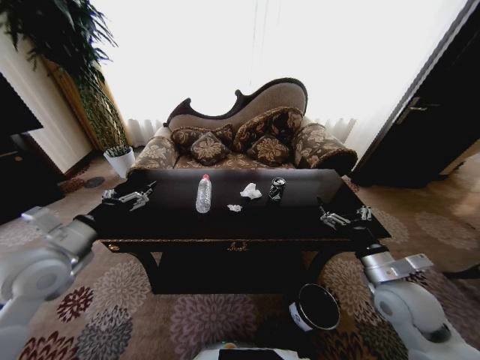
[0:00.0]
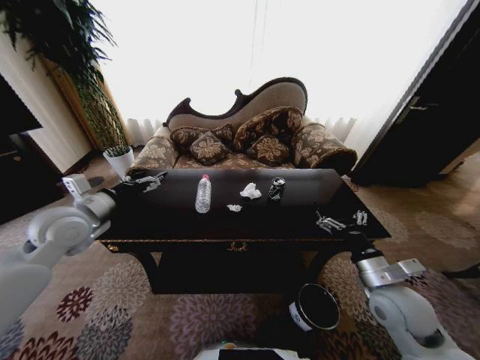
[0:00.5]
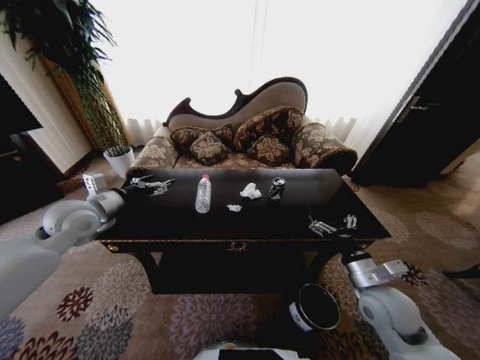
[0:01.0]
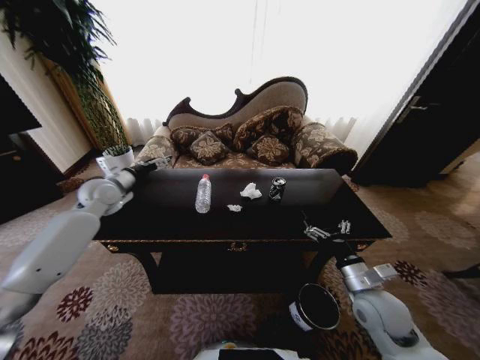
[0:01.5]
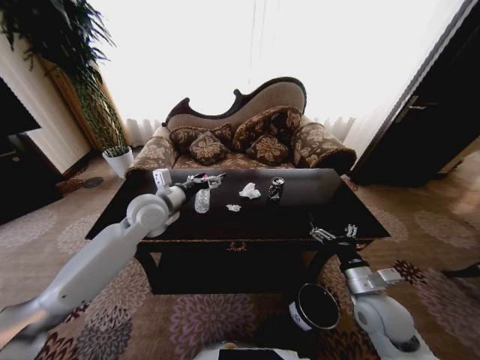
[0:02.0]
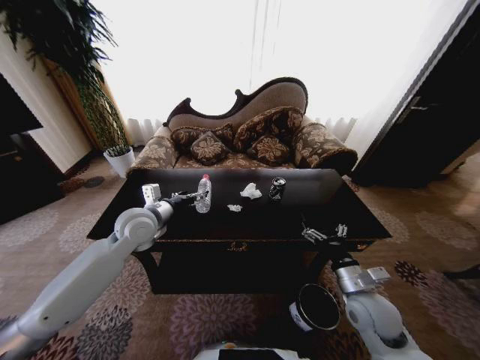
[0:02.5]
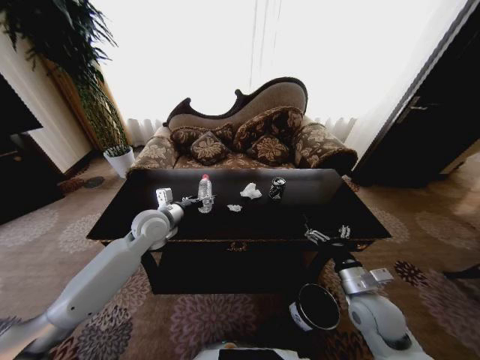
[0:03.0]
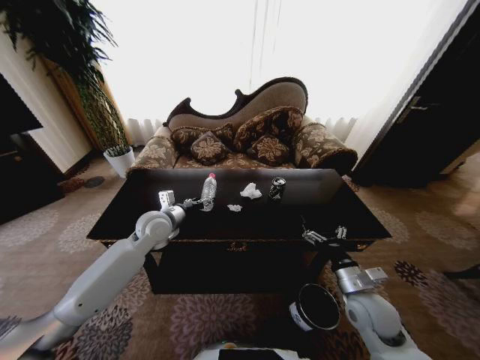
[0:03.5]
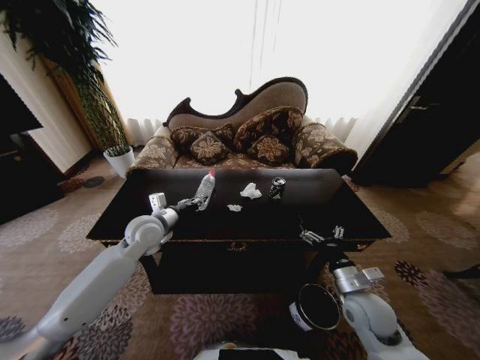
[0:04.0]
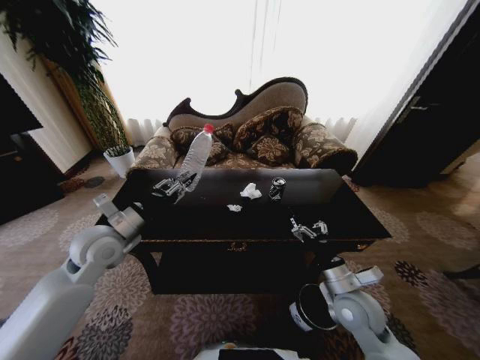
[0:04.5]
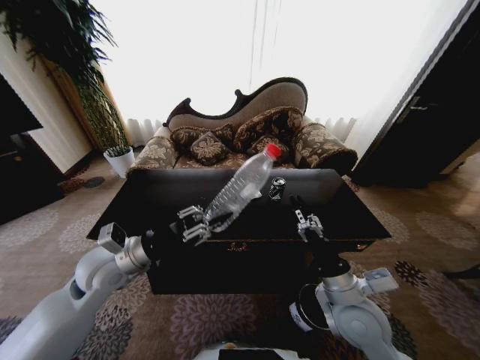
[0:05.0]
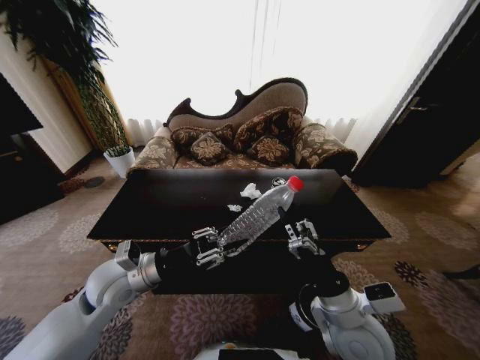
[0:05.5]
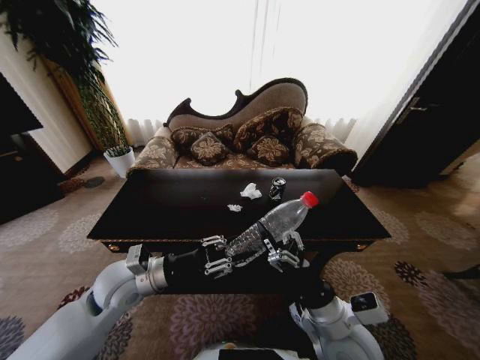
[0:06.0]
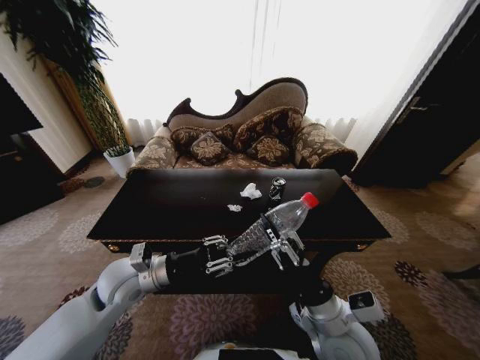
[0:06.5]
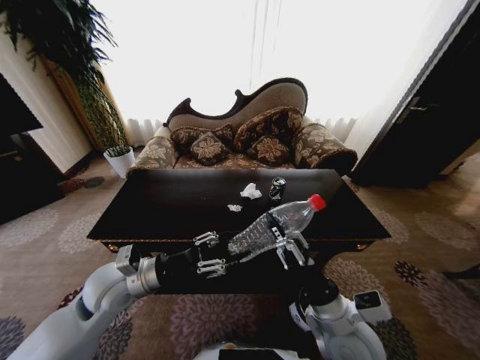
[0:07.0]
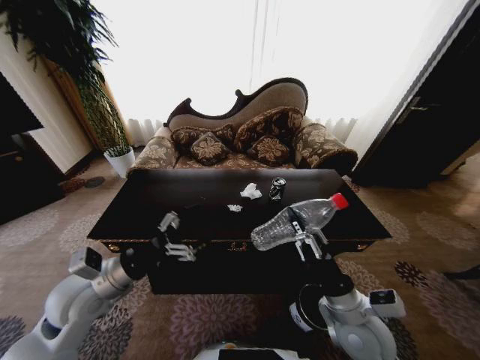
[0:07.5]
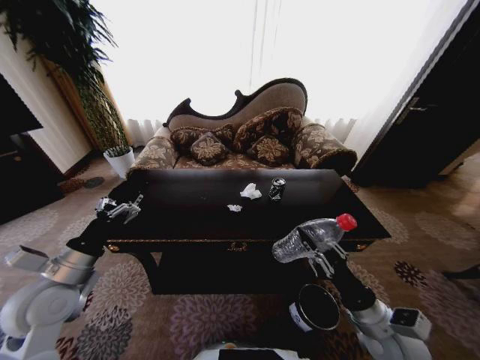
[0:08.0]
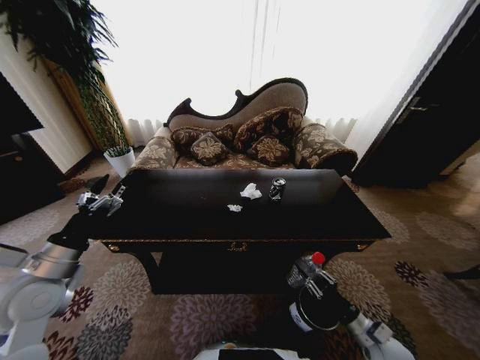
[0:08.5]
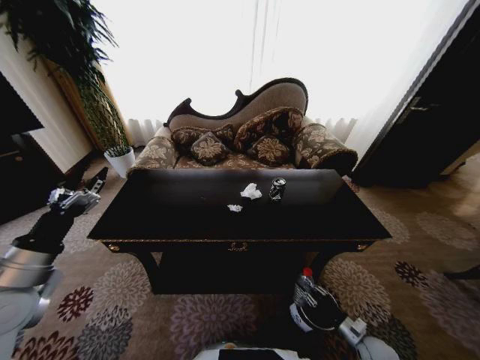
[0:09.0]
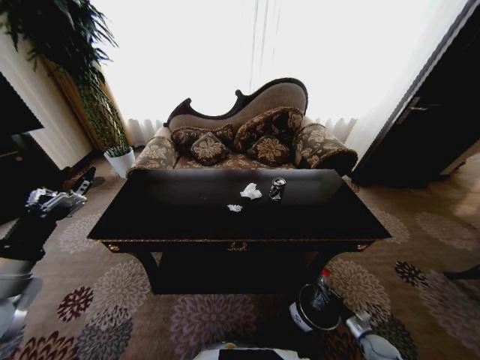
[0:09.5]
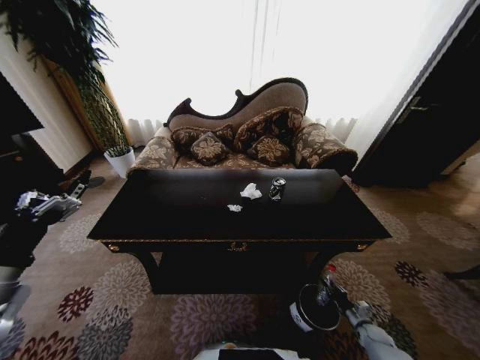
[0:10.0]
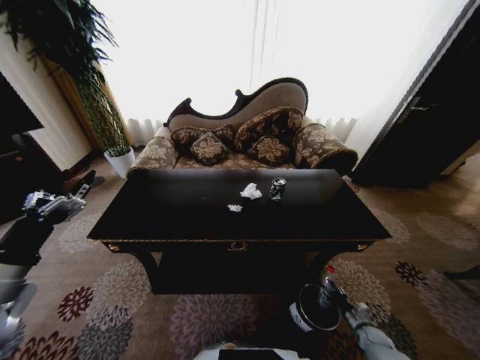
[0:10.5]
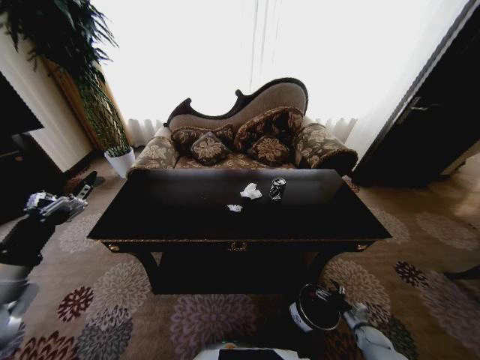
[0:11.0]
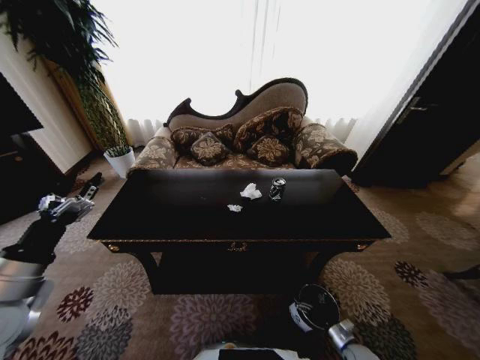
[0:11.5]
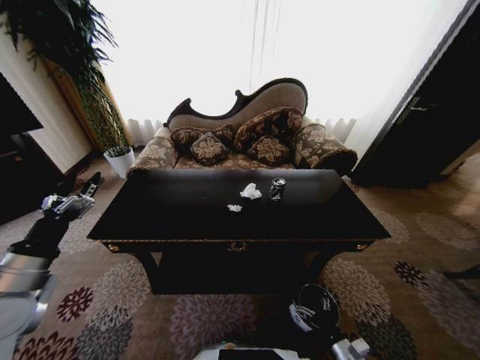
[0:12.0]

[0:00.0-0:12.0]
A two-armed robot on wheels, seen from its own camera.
Task of the whole recording: Move to the front of the table and place the trash on the table into the trash bin.
0:00.0 to 0:02.0: The right gripper moves downward, roughly 5 cm, while the left gripper travels forward and to the right by approximately 20 cm.
0:02.0 to 0:04.0: The left gripper goes approximately 5 cm downward, and closes.
0:04.0 to 0:06.0: The right gripper moves to the left, backward and upward, approximately 15 cm. The left gripper is displaced backward by approximately 15 cm.
0:06.0 to 0:08.0: The left gripper shifts some 10 cm to the left, and opens its fingers. Meanwhile the right gripper is displaced to the right by some 10 cm, and closes.
0:08.0 to 0:10.0: The right gripper goes approximately 40 cm downward and to the right, while the left gripper moves upward and backward, roughly 10 cm.
0:10.0 to 0:12.0: The right gripper shifts some 25 cm to the left, upward and backward, and opens its fingers.

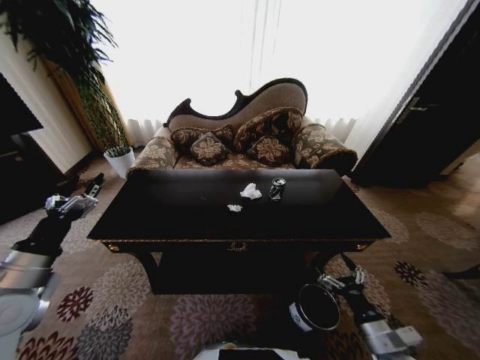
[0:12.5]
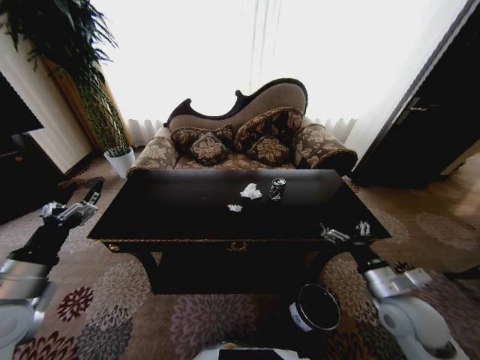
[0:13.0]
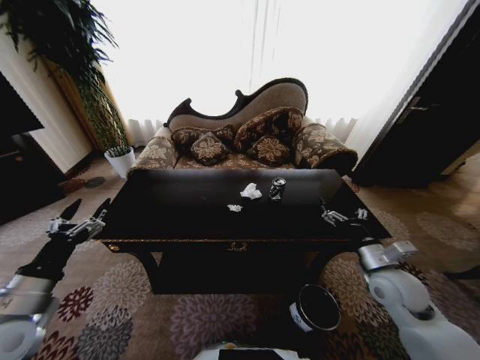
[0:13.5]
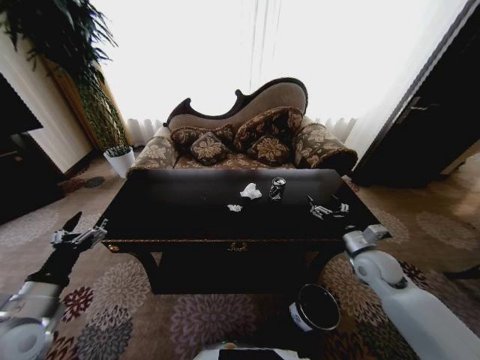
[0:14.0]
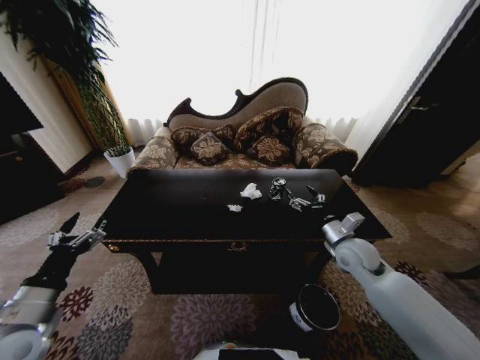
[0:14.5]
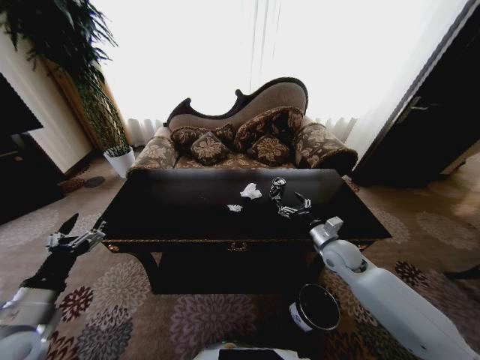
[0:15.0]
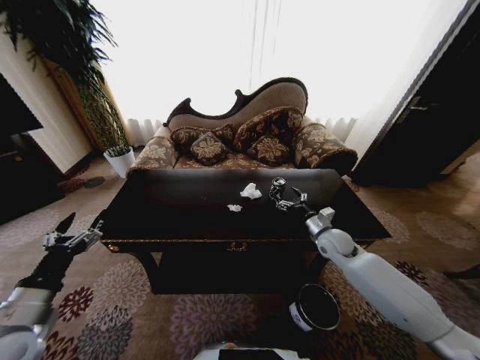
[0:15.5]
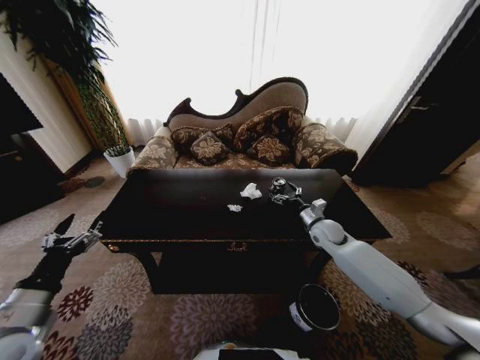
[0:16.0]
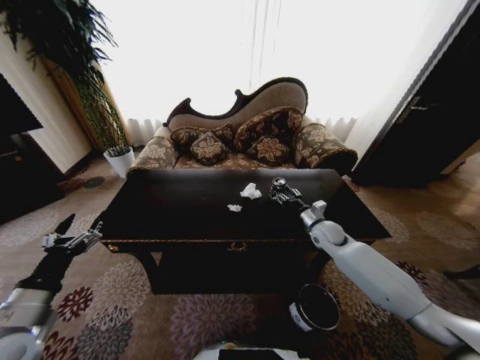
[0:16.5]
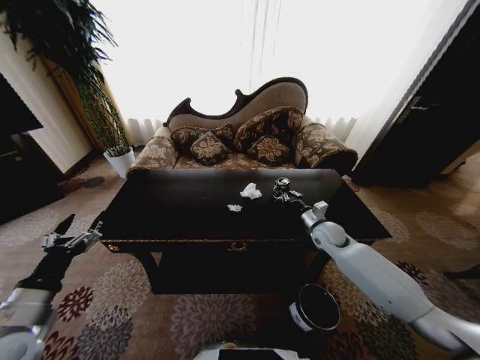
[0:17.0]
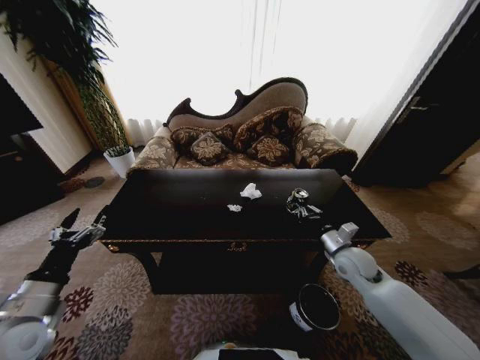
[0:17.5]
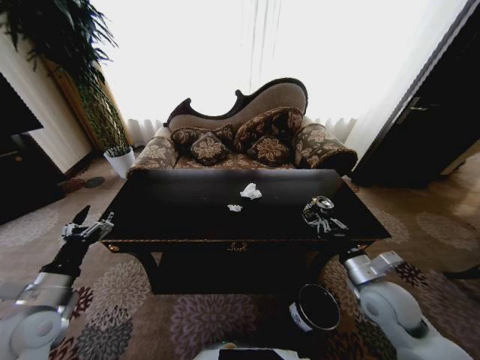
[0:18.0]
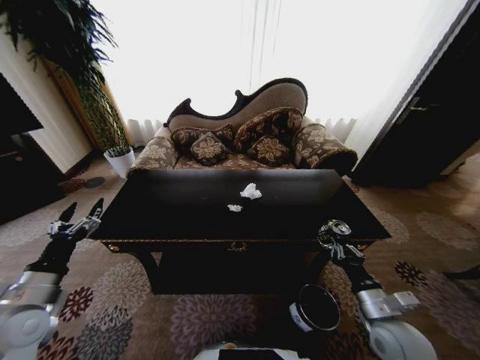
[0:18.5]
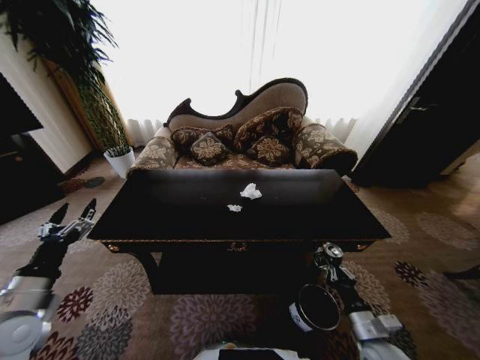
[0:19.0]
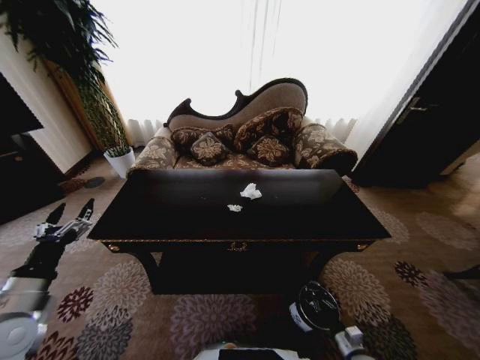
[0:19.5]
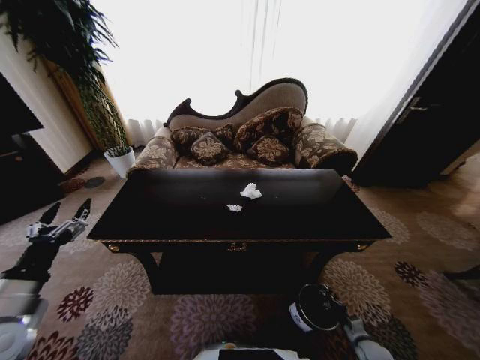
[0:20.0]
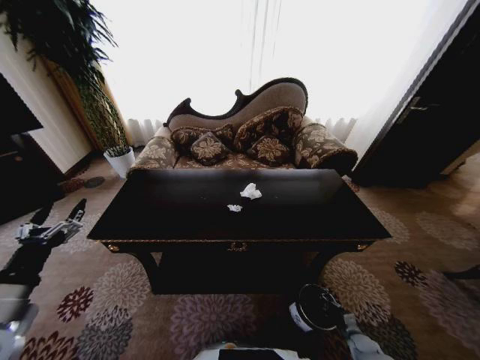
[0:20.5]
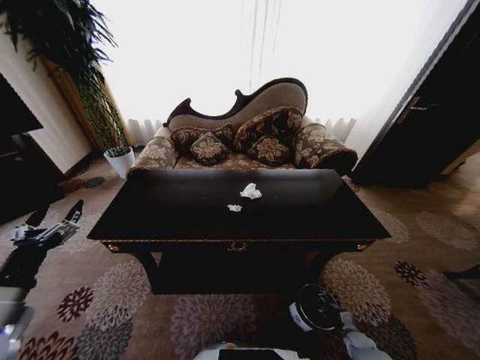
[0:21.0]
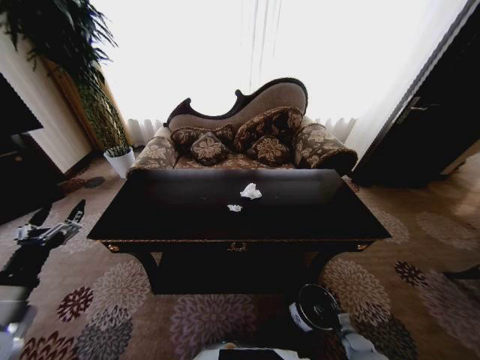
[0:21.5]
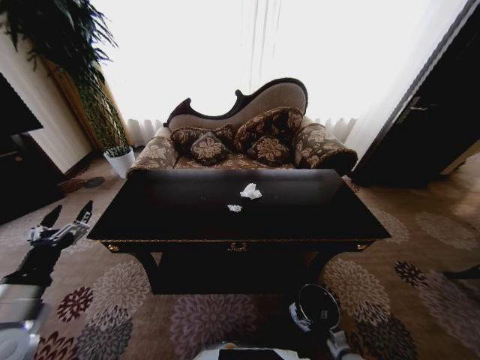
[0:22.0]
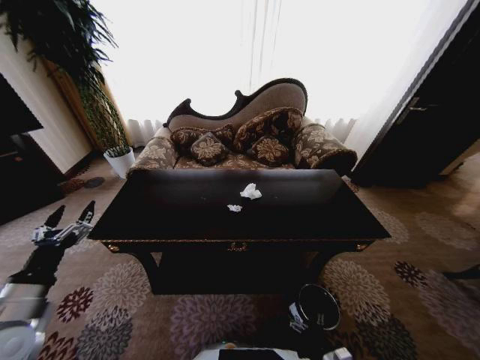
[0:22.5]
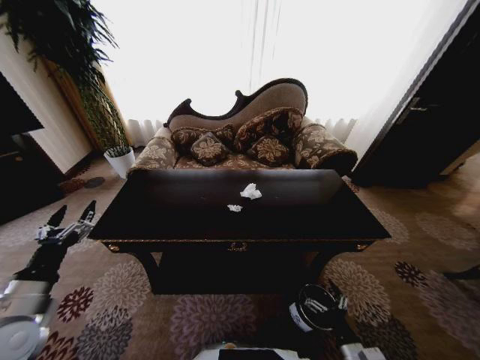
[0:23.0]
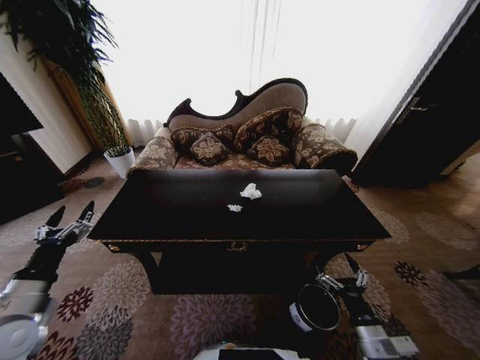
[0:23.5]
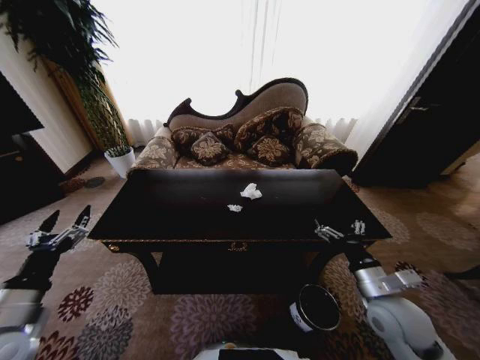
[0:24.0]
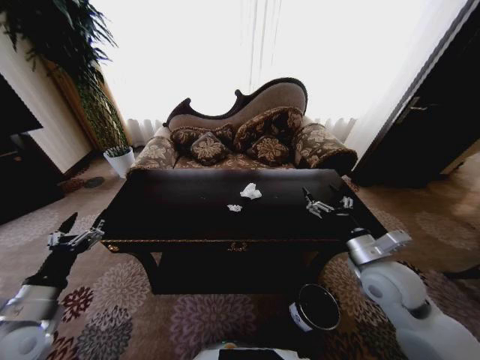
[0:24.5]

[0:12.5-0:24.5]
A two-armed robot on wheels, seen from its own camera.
Task of the whole recording: Move to the front of the table and place the trash on the table into the trash bin.
0:12.5 to 0:14.5: The left gripper changes place by roughly 5 cm, while the right gripper goes approximately 25 cm forward and upward.
0:14.5 to 0:16.5: The right gripper goes some 10 cm forward, and closes up.
0:16.5 to 0:18.5: The right gripper moves backward, about 30 cm, and closes up.
0:18.5 to 0:20.5: The right gripper travels downward by roughly 35 cm; the left gripper changes place by about 5 cm.
0:20.5 to 0:22.5: The right gripper is displaced to the left, backward and upward by roughly 20 cm, and opens its fingers.
0:22.5 to 0:24.5: The right gripper travels upward and forward by some 40 cm.

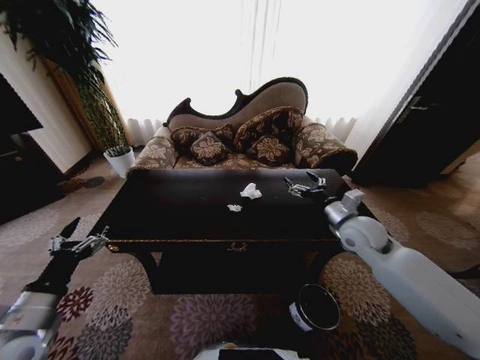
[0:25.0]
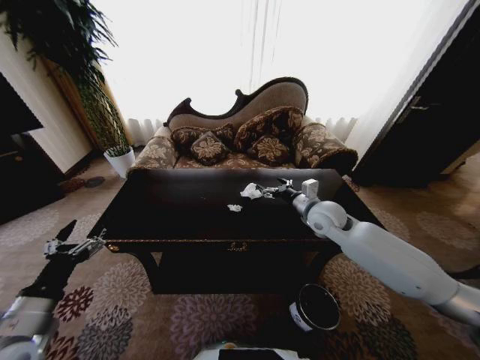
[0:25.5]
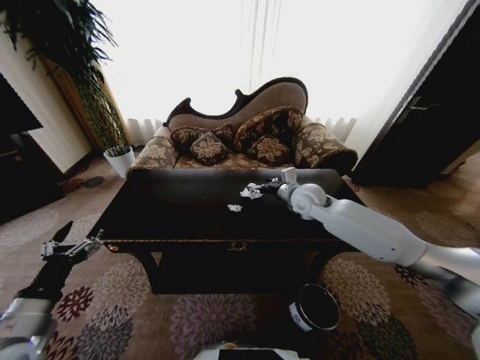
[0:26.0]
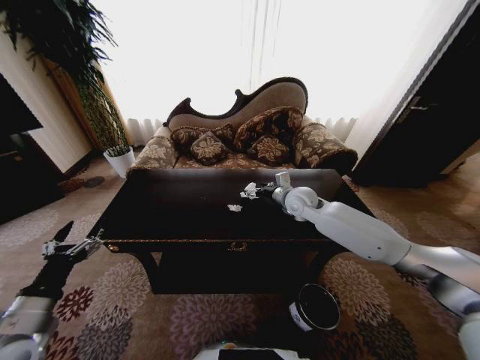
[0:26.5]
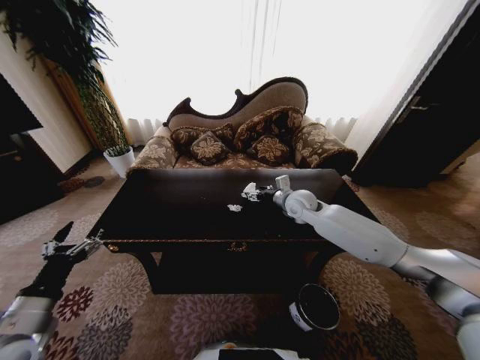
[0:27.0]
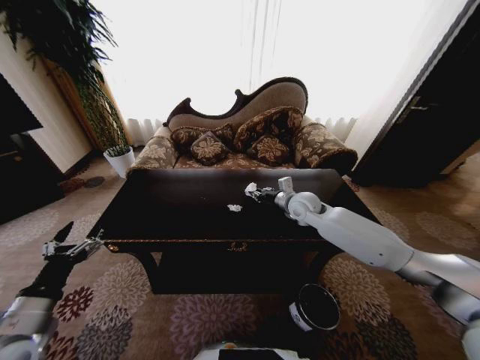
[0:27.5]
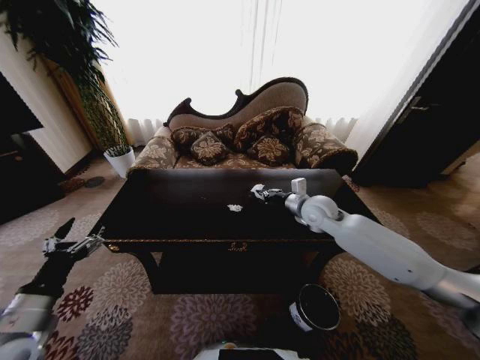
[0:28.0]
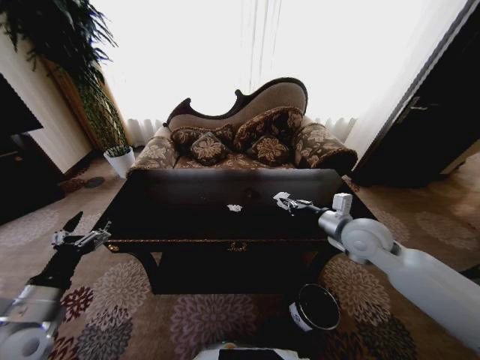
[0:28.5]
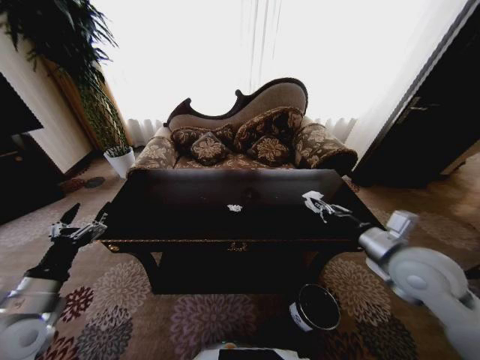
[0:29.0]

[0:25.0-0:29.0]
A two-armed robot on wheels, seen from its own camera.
Task of the whole recording: Move to the front of the table and place the trash on the table into the trash bin.
0:25.0 to 0:27.0: The right gripper moves forward and to the left, some 15 cm.
0:27.0 to 0:29.0: The right gripper shifts roughly 30 cm backward and to the right, and closes its fingers.
